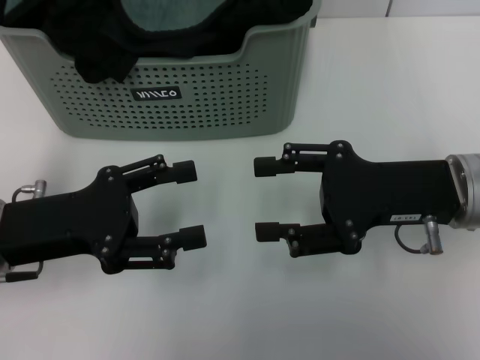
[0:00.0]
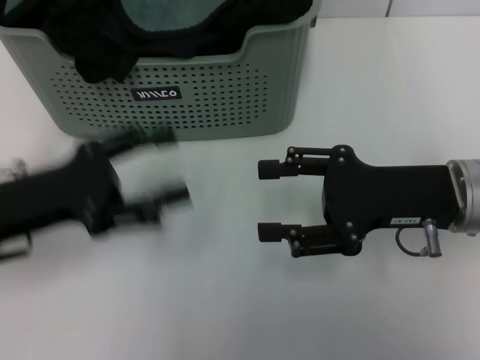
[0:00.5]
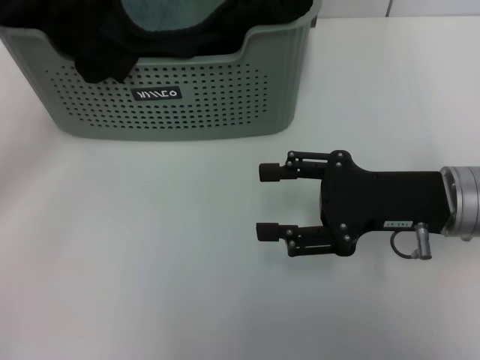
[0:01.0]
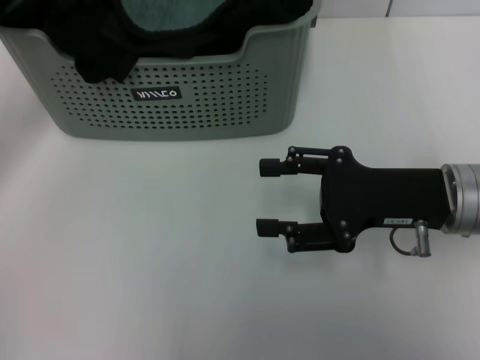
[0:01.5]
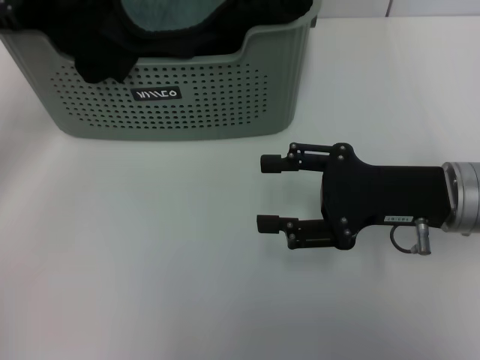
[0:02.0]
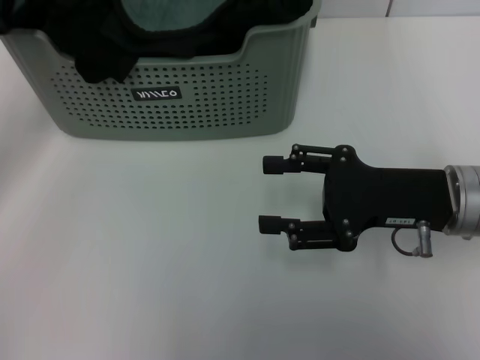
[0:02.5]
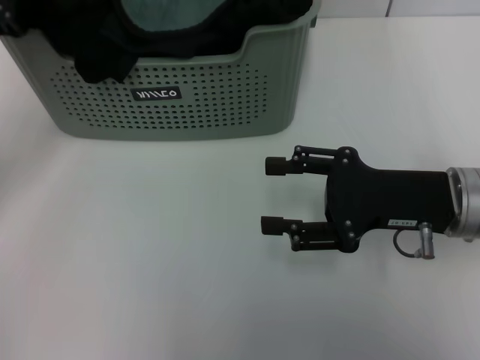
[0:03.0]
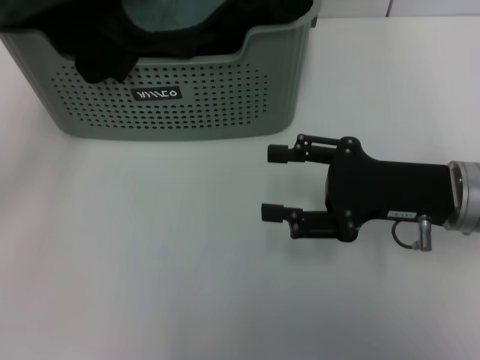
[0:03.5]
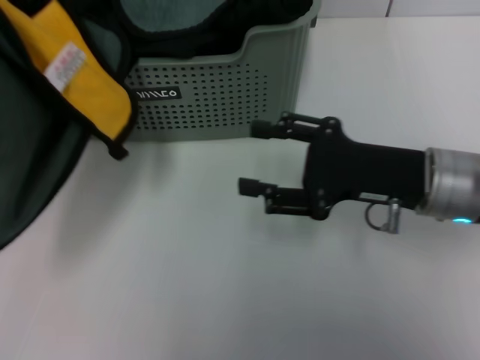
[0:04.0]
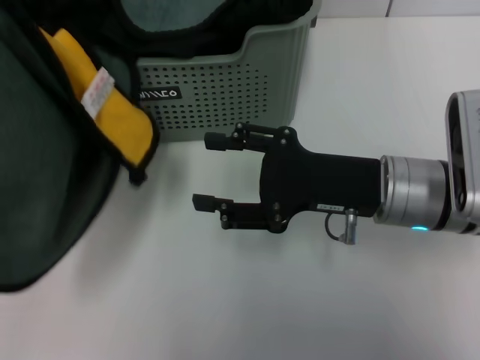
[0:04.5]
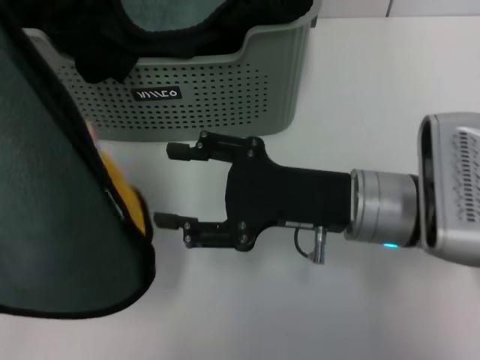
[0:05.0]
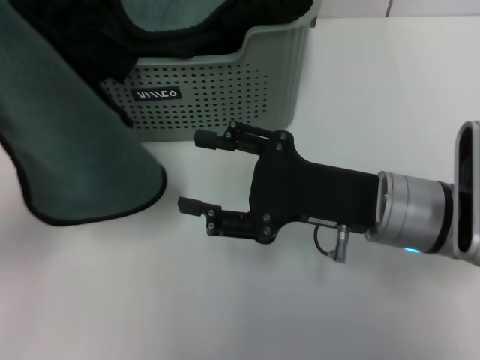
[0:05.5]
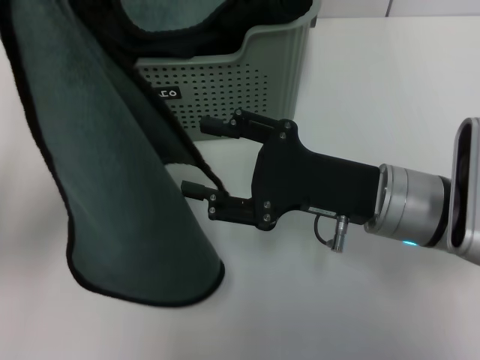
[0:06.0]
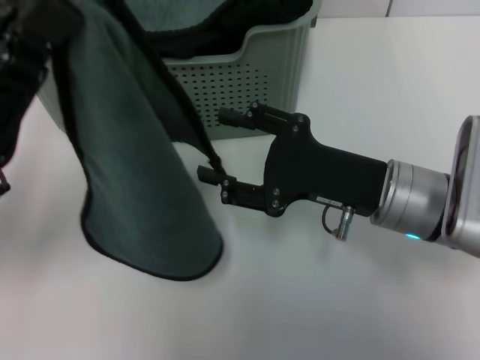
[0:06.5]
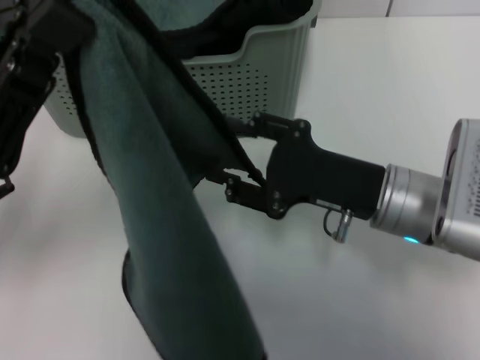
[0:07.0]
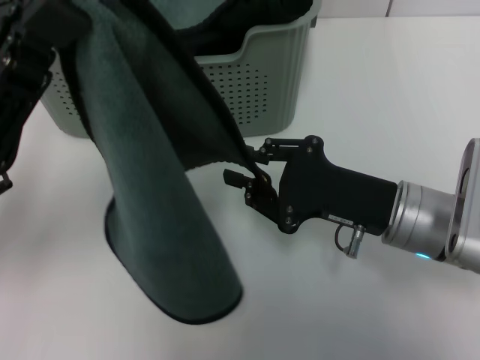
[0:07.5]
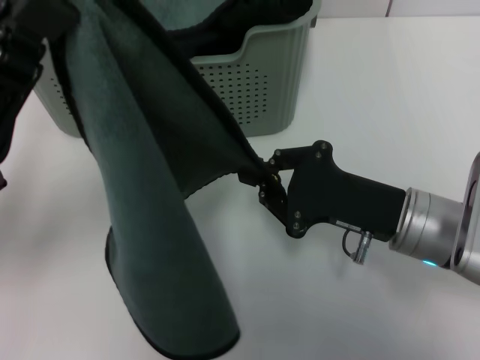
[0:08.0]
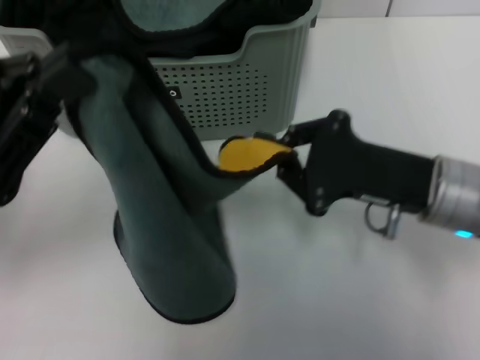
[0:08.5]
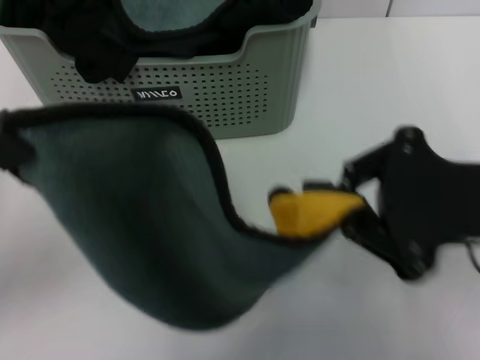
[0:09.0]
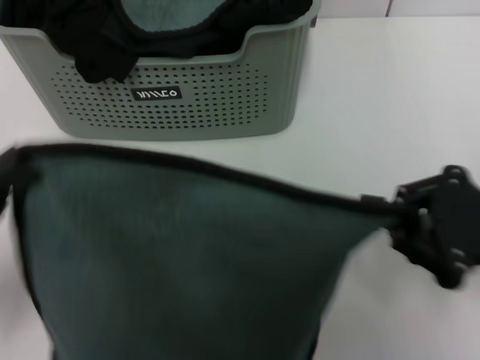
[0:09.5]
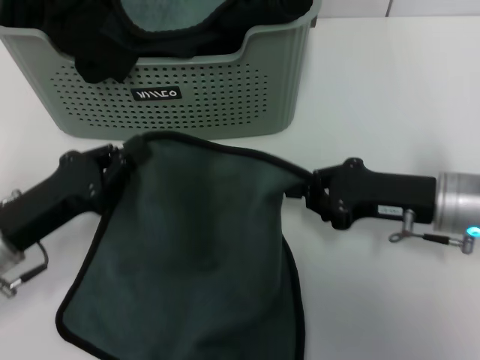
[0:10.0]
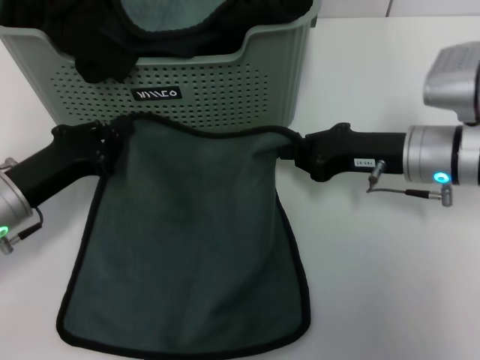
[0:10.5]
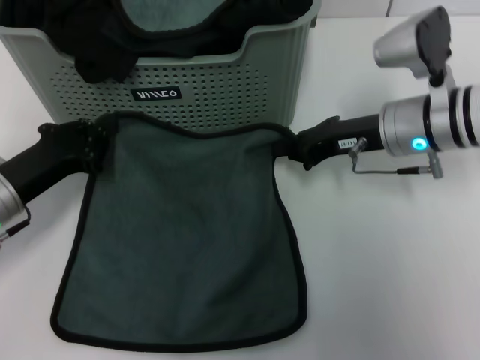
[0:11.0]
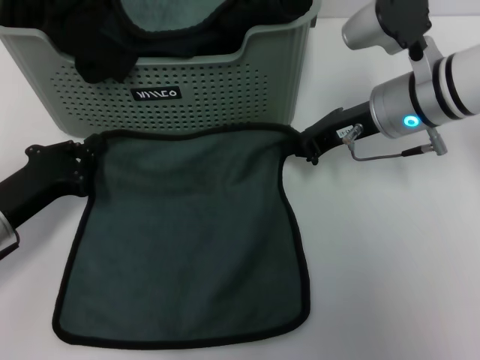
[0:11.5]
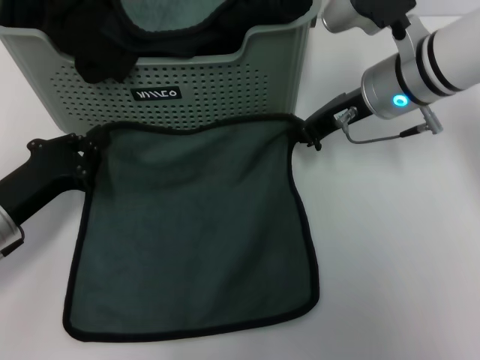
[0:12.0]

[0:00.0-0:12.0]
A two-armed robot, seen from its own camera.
Task of the whole recording: pick up the towel from the storage box and lay it flat on the table.
Step, 0:00.0 to 0:02.0: Pick up a towel with the left gripper.
Step, 0:02.5 to 0:08.0: Spread the towel flat with the left gripper.
0:00.0 to 0:02.0: The left gripper travels forward and to the left by about 10 cm.
0:02.0 to 0:04.0: The left gripper heads backward, covering approximately 10 cm, and closes up.
0:04.0 to 0:06.0: The left gripper goes about 5 cm to the right.
0:06.0 to 0:08.0: The right gripper closes.
0:08.0 to 0:10.0: The left gripper goes about 10 cm downward. The right gripper goes upward and returns, roughly 15 cm each way.
0:10.0 to 0:12.0: The right gripper travels forward, to the left and upward by approximately 15 cm.

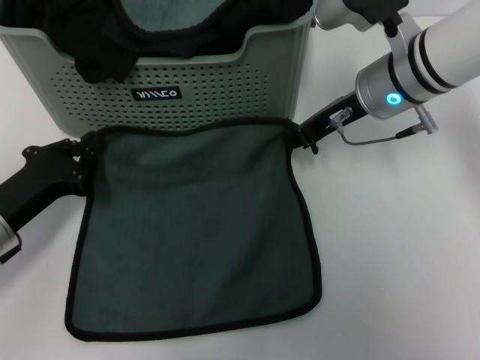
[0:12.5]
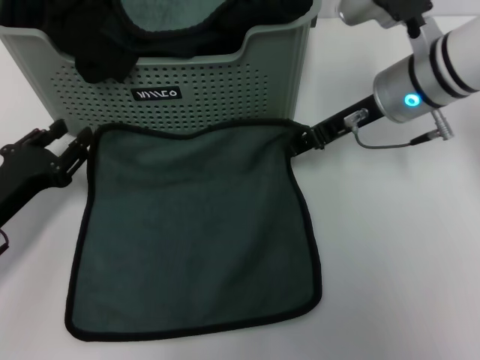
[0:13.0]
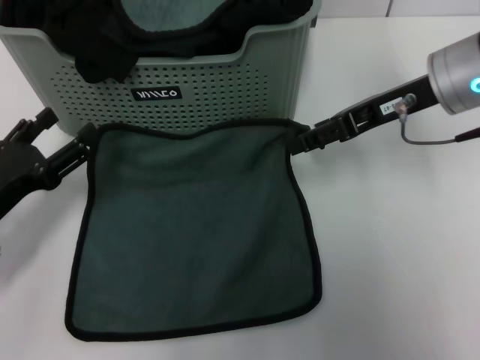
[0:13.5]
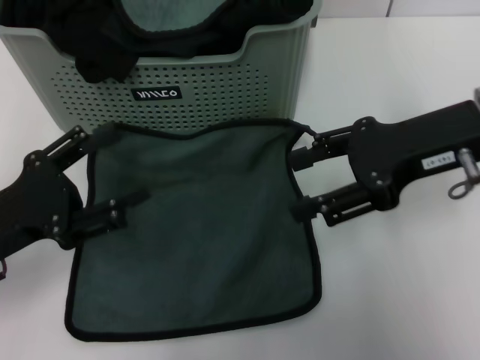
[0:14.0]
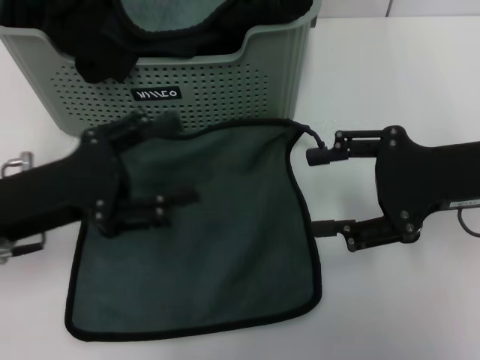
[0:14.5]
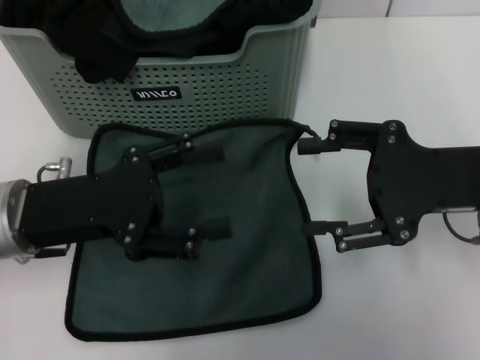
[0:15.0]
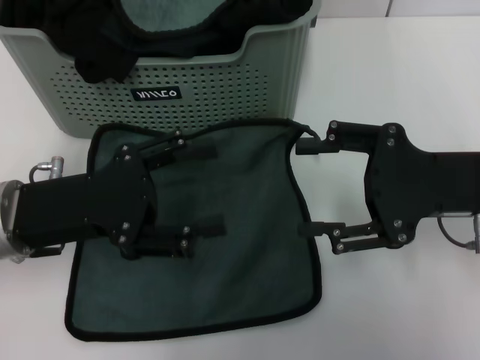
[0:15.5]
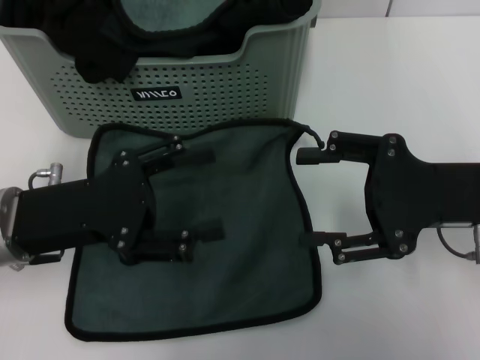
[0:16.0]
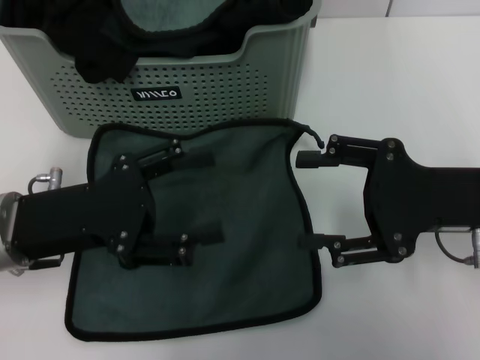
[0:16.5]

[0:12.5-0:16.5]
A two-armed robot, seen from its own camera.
Task of the whole recording: pick up the towel from the storage box and lay it flat on the table.
0:12.5 to 0:14.5: The left gripper heads upward, covering roughly 10 cm, and opens. Meanwhile the right gripper shifts about 15 cm backward and to the right, and opens up.
0:14.5 to 0:16.5: There are only small adjustments of the grippers.
